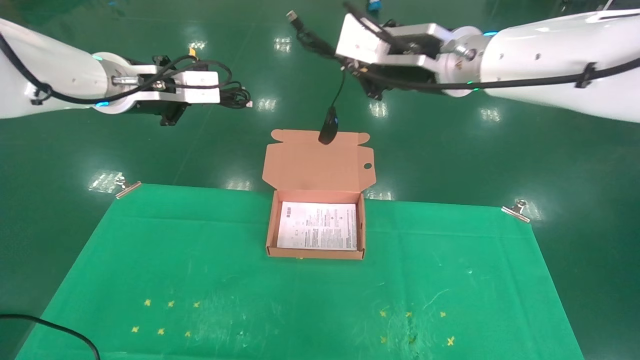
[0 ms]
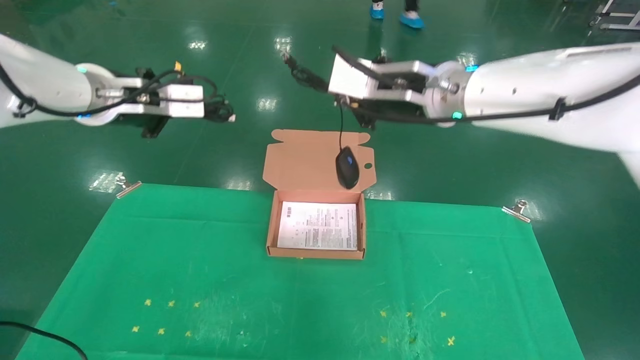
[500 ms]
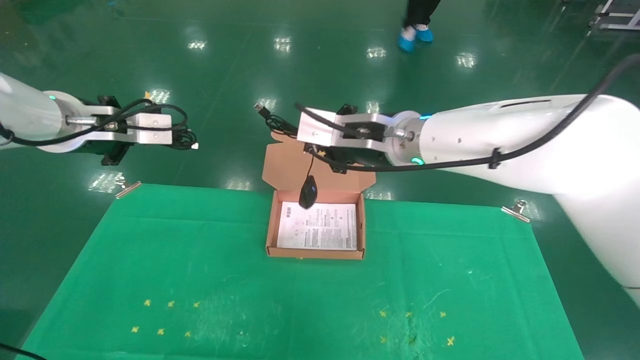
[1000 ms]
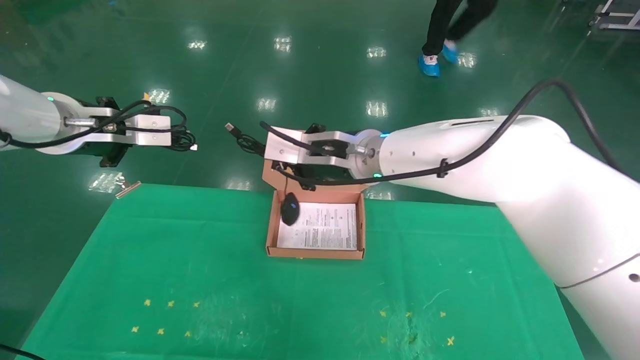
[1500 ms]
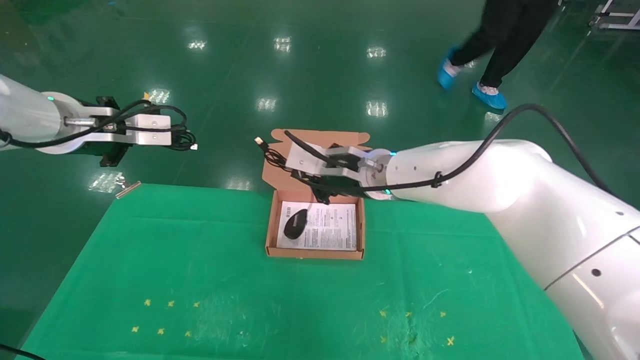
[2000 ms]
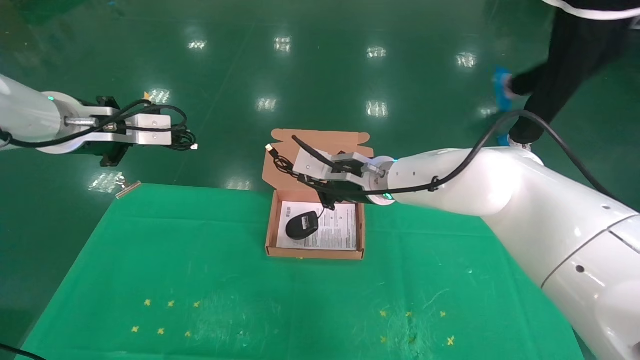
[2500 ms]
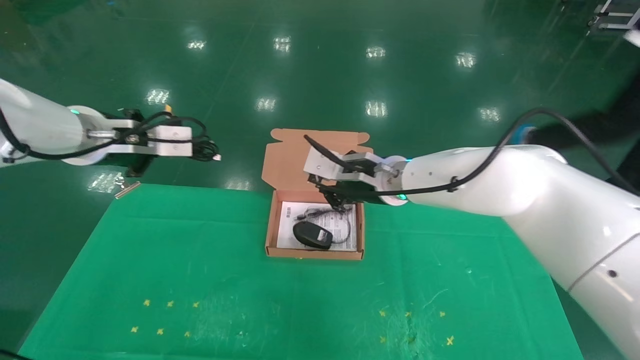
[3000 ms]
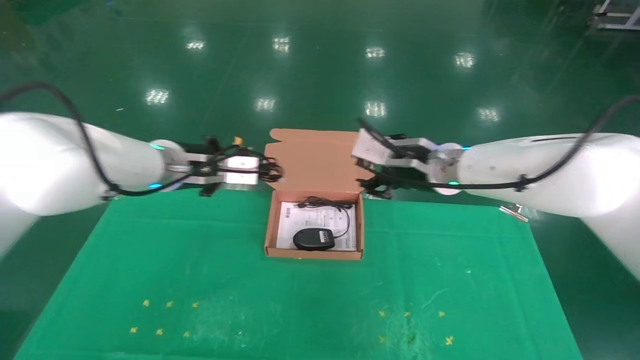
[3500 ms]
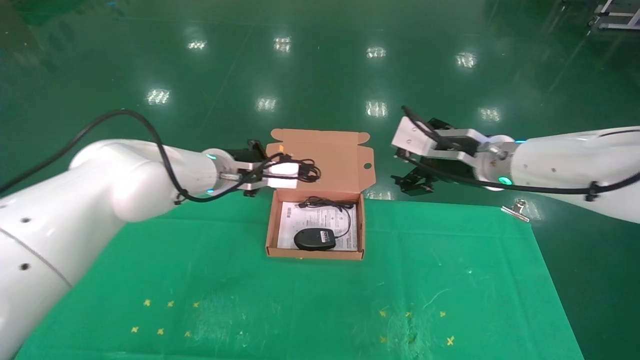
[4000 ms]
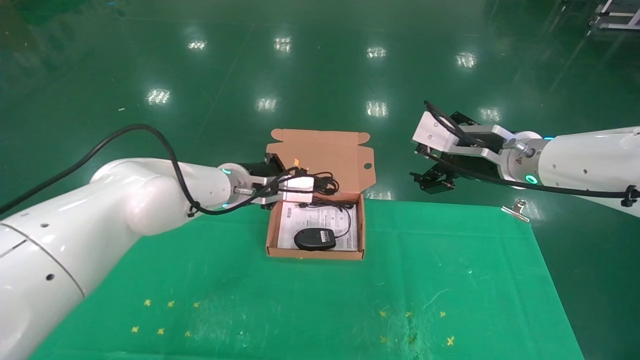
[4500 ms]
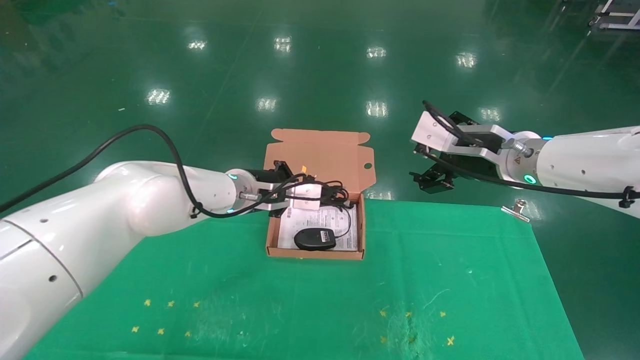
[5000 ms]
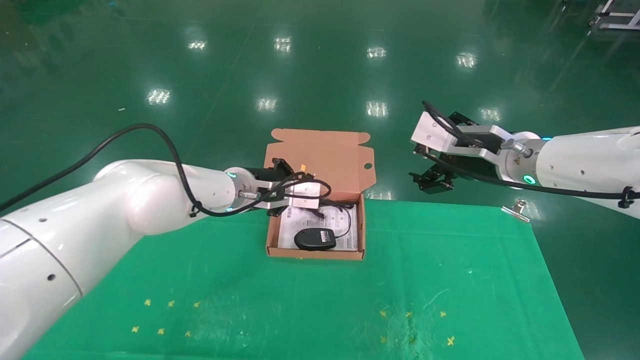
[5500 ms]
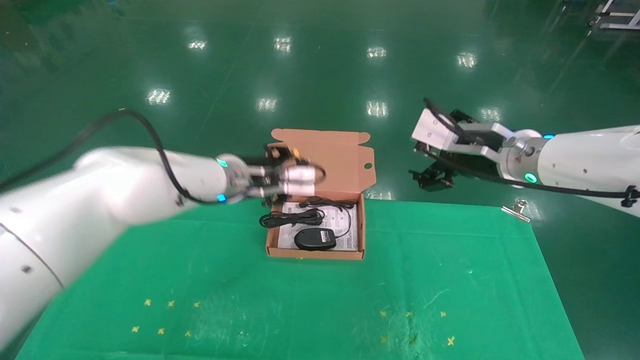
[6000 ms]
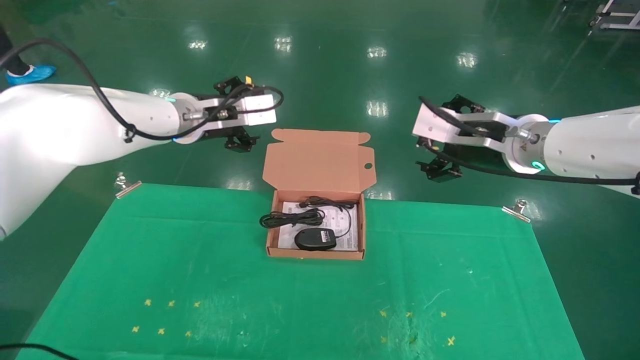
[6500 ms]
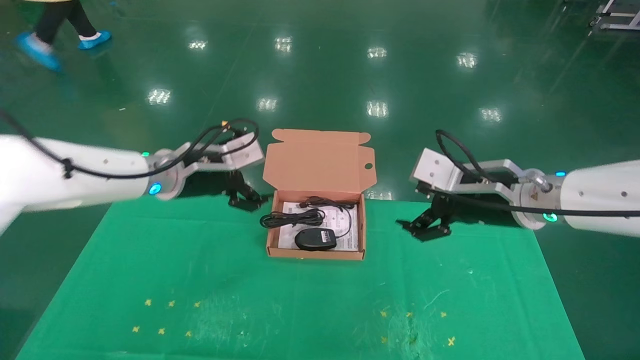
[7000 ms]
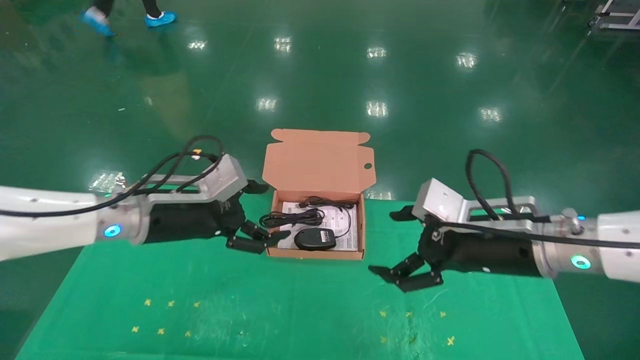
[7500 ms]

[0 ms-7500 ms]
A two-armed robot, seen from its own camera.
Task of the whole recording: grasp data cable left put into box grasp mouse right put into box.
Step, 0 ms to 5500 ms: Place the mouse and power cord into the box.
0 ms to 2000 ms: The right gripper moves downward, to the left and forward, approximately 20 cm, while the left gripper heads to the left, covering about 5 cm.
2000 ms to 4000 ms: The right gripper is displaced to the right by about 15 cm, and opens its fingers, while the left gripper heads to the right, forward and downward, covering roughly 20 cm.
4000 ms to 5500 ms: The grippers stay close to where they were, moving slightly.
5500 ms to 7500 ms: The left gripper goes about 15 cm to the left and backward, and opens its fingers. Meanwhile the right gripper shifts some 10 cm downward and backward.

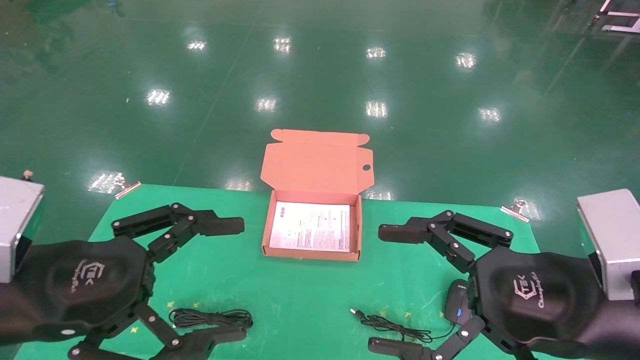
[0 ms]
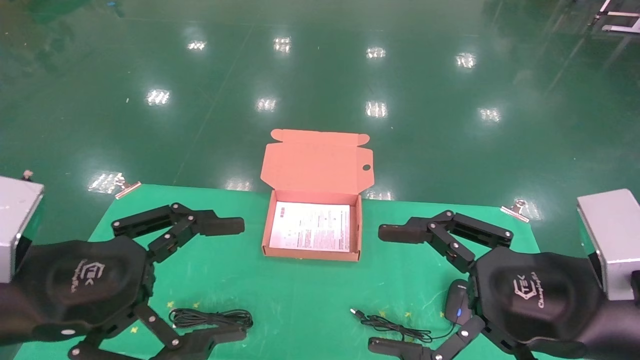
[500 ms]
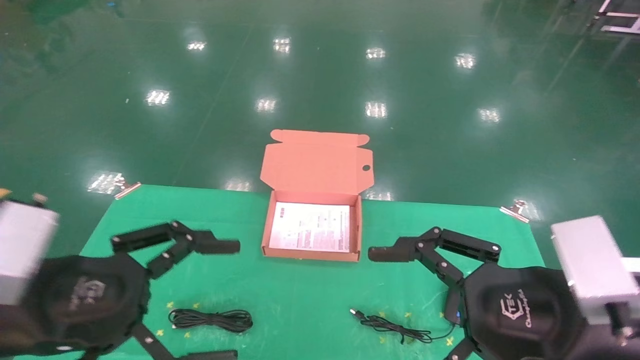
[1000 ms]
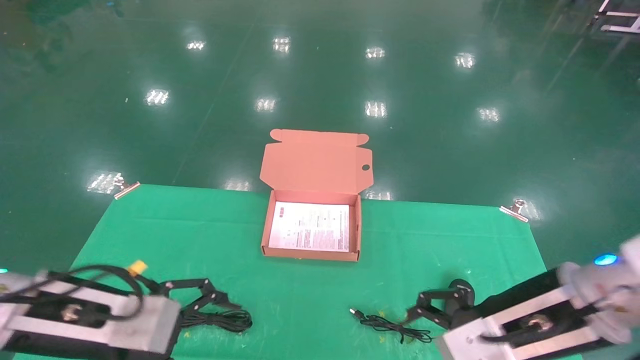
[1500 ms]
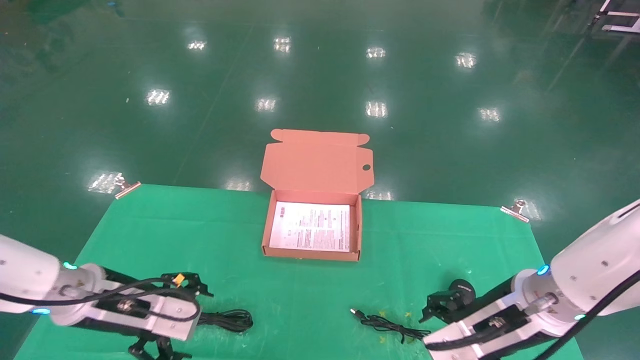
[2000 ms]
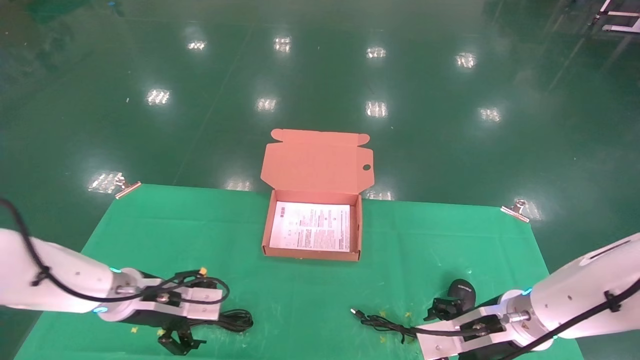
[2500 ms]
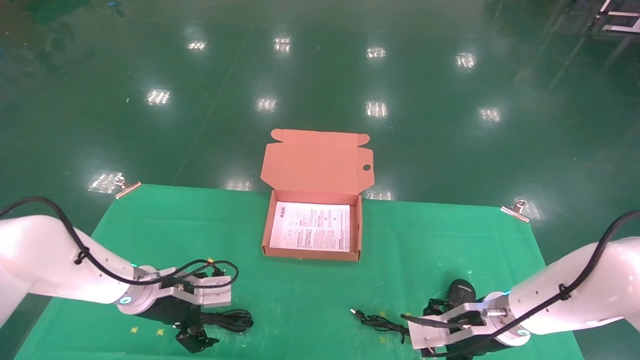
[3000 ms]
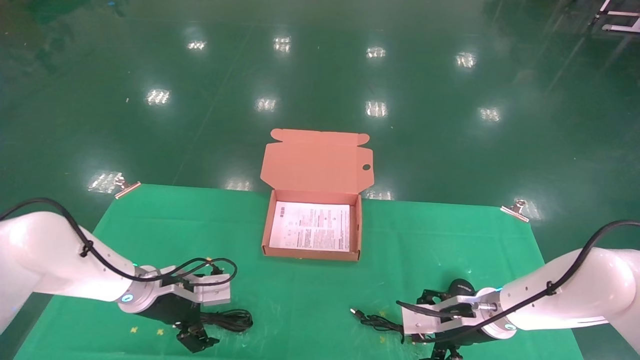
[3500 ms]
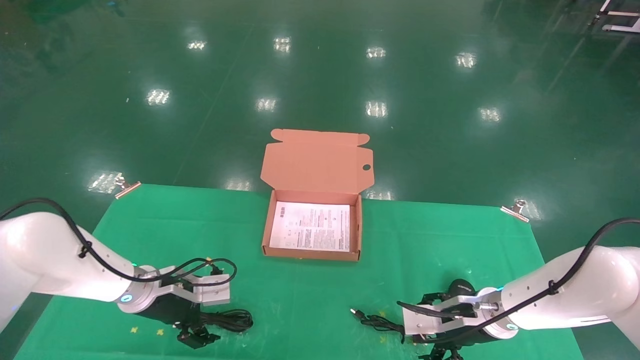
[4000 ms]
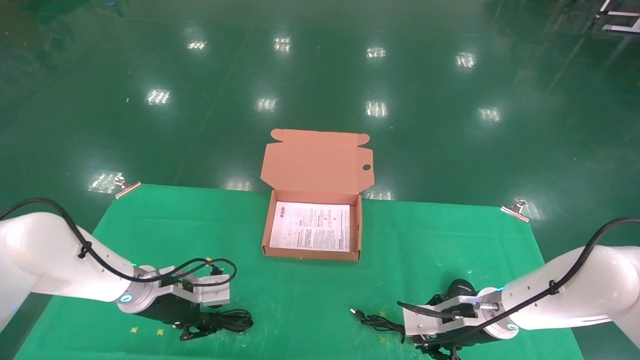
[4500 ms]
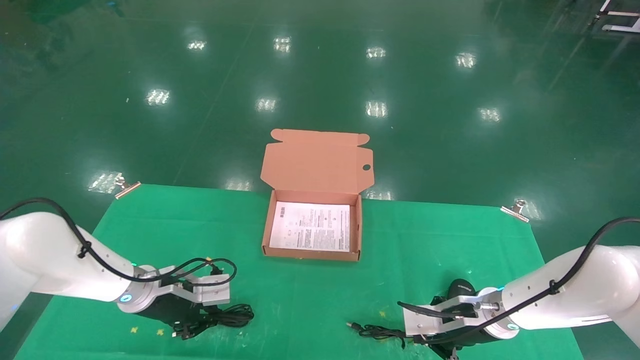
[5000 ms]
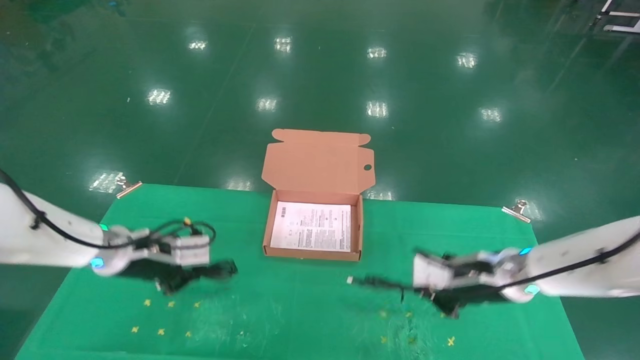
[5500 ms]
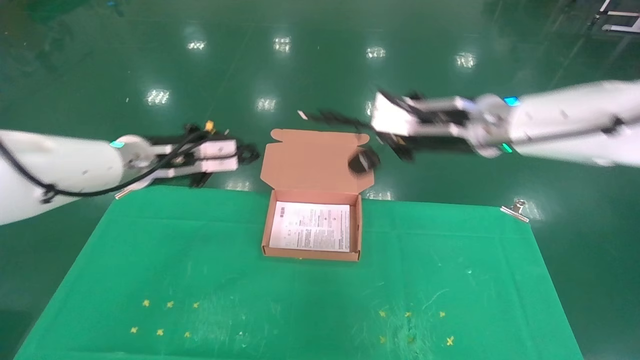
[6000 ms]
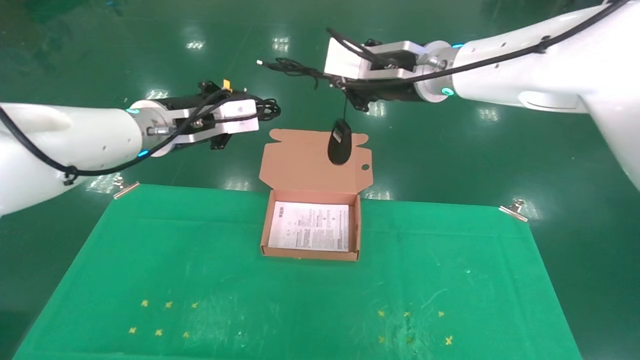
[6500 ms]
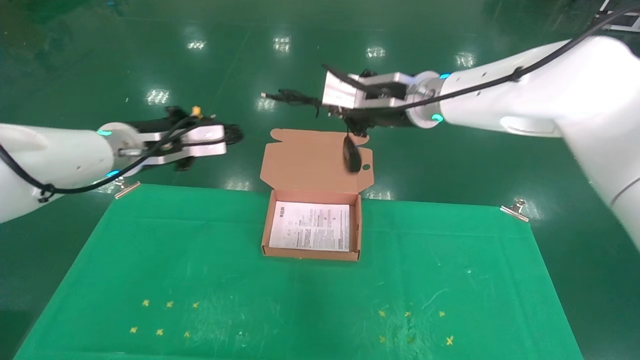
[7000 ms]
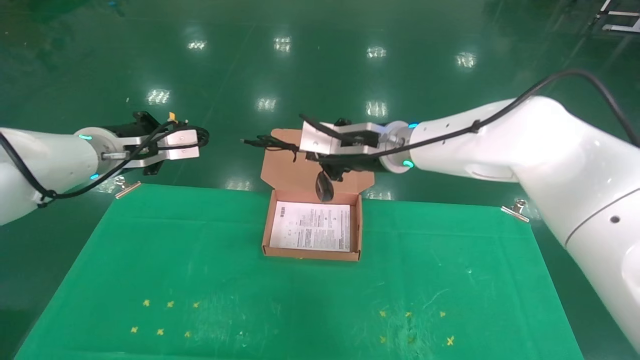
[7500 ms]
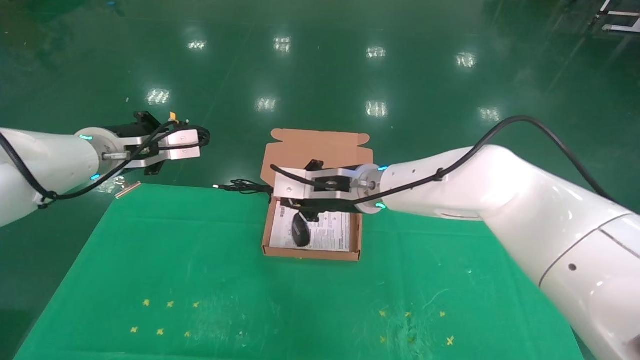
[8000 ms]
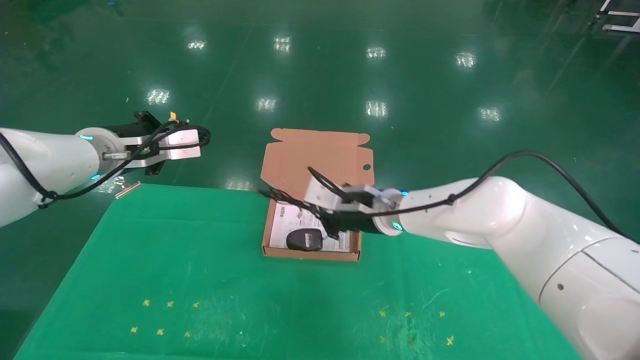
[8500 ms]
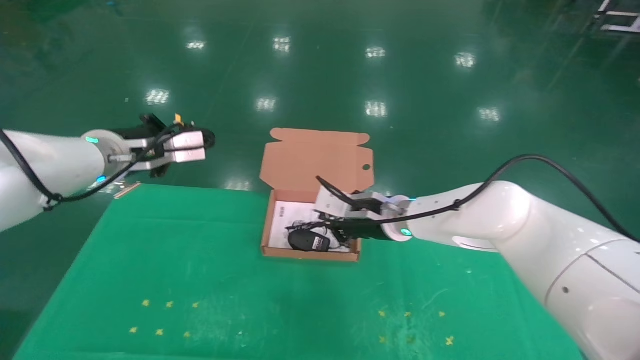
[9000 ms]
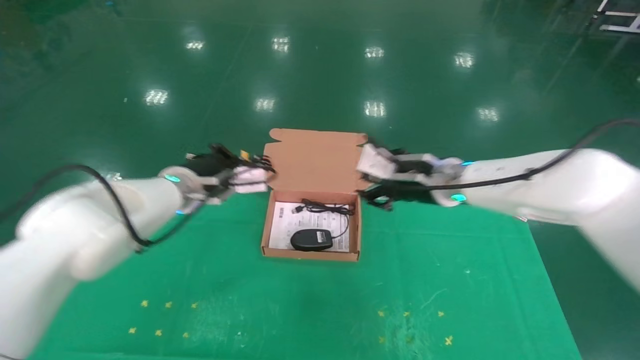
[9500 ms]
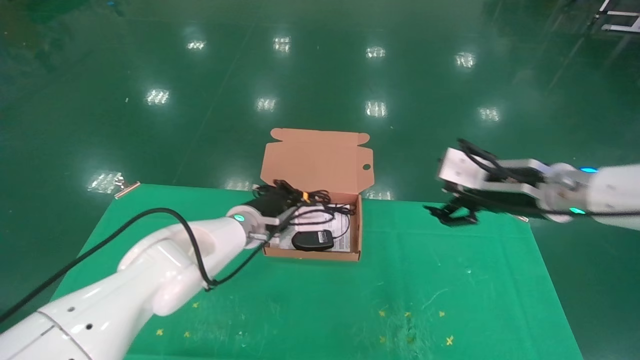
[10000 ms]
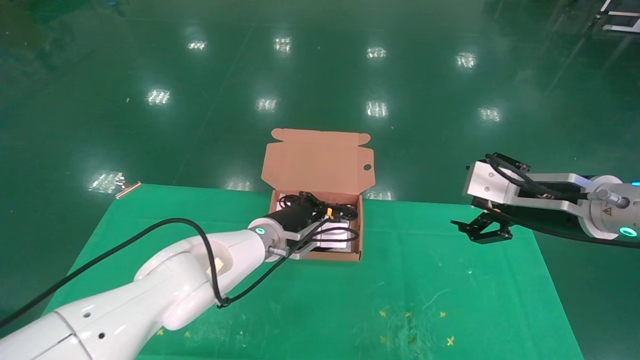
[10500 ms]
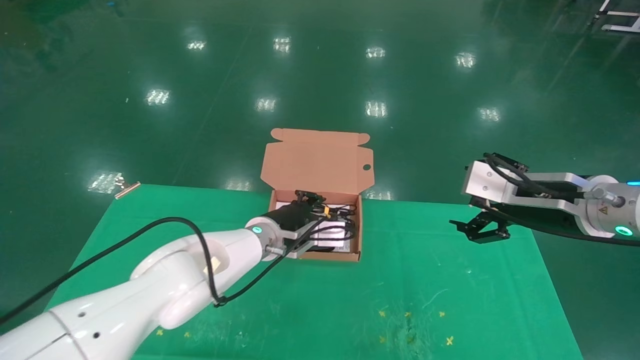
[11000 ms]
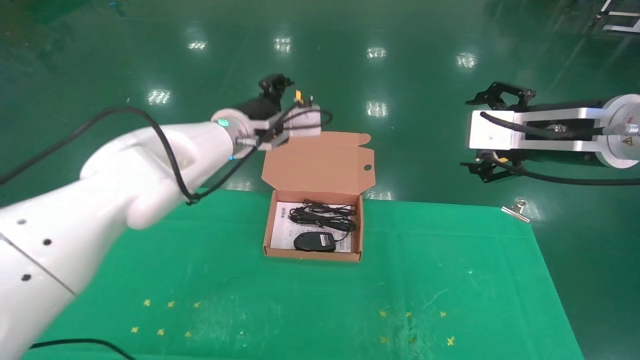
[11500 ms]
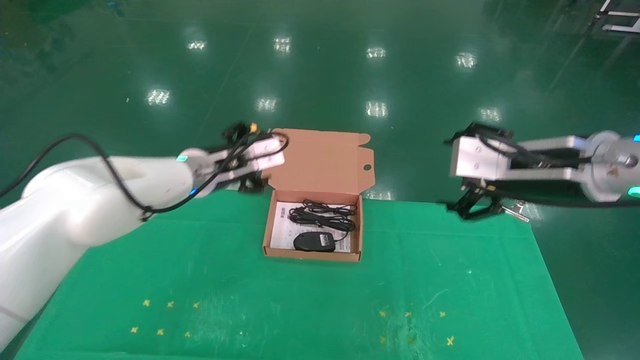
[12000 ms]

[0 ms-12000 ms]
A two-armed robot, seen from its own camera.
Task of the whole recording: grasp data cable left put into box grasp mouse right put into box.
Step, 1000 ms to 5000 ms: Grab and pick up both the mouse and power cord from the accessory packaging area at the same time.
Step, 5500 ms to 11000 ms: Place the mouse and power cord into the box.
0 ms to 2000 ms: The two grippers go approximately 15 cm forward and downward.
2000 ms to 4000 ms: Both grippers move forward and downward, roughly 15 cm.
4000 ms to 6000 ms: The grippers both shift upward by approximately 25 cm. The left gripper closes. The right gripper closes.
6000 ms to 8000 ms: The left gripper shifts some 5 cm to the left; the right gripper goes about 15 cm to the left and downward.
8000 ms to 10000 ms: The right gripper is displaced to the right by roughly 20 cm, and opens up; the left gripper travels to the right and downward by approximately 25 cm.
10000 ms to 12000 ms: The right gripper heads backward, covering approximately 5 cm. Meanwhile the left gripper goes about 10 cm to the left and upward, and opens.
